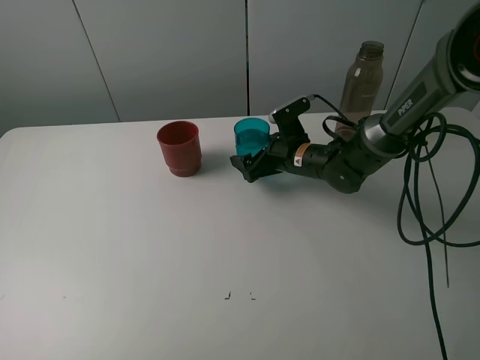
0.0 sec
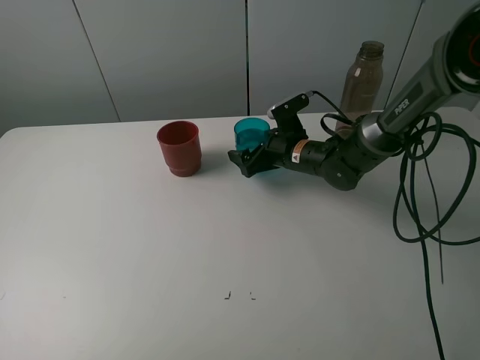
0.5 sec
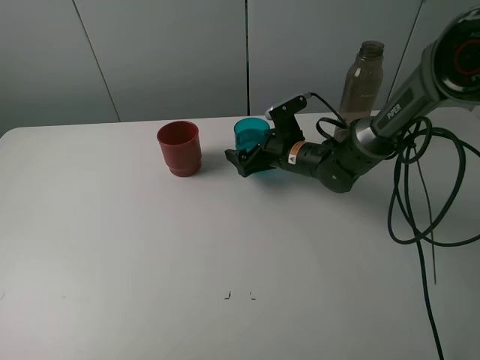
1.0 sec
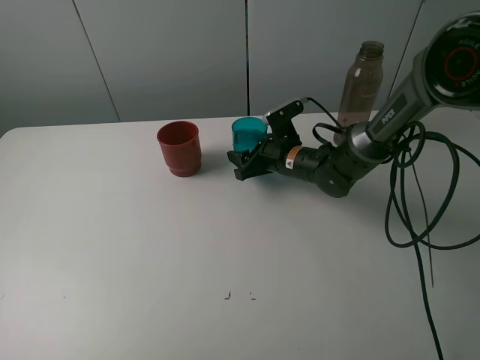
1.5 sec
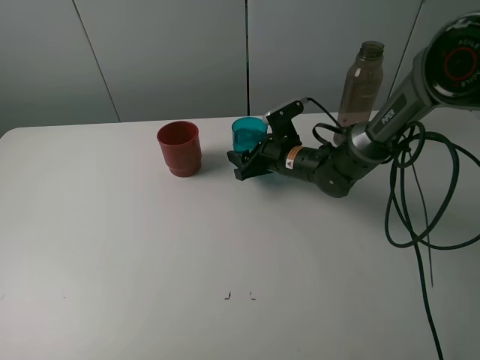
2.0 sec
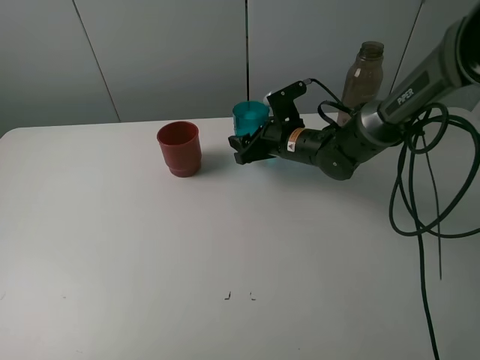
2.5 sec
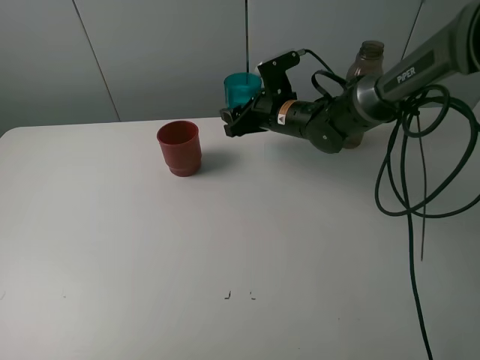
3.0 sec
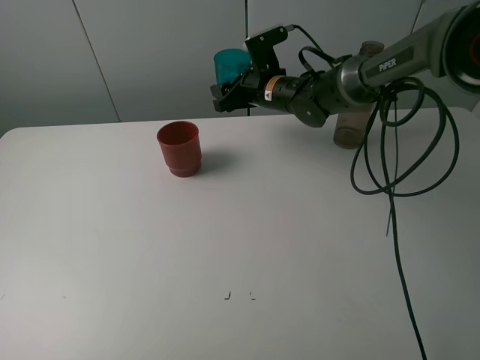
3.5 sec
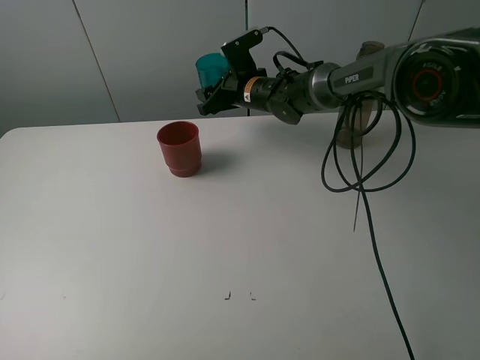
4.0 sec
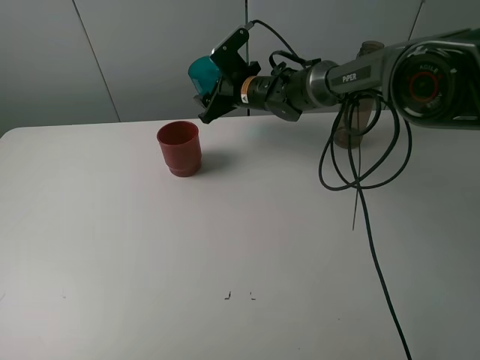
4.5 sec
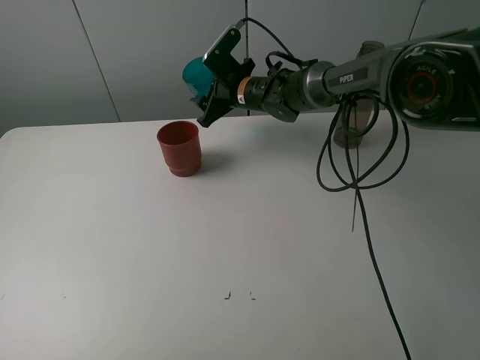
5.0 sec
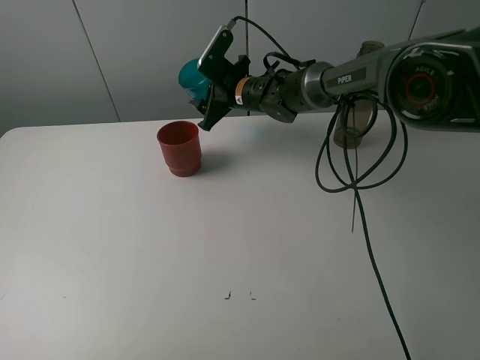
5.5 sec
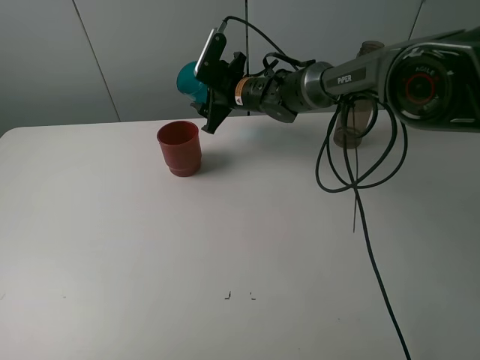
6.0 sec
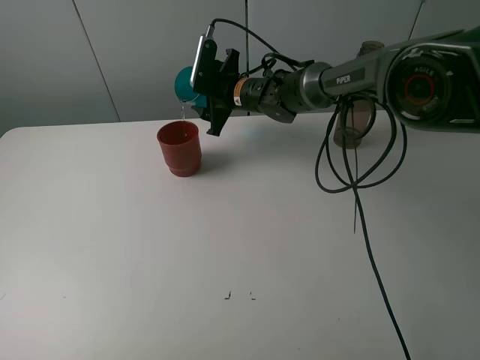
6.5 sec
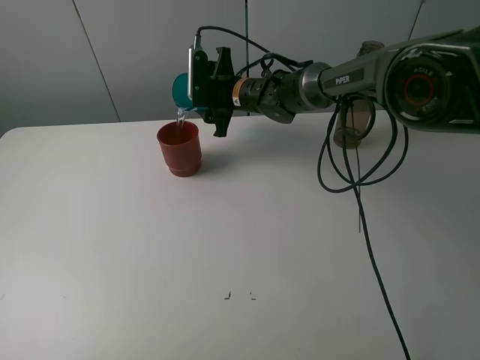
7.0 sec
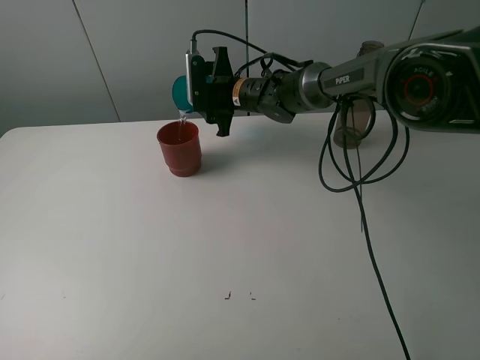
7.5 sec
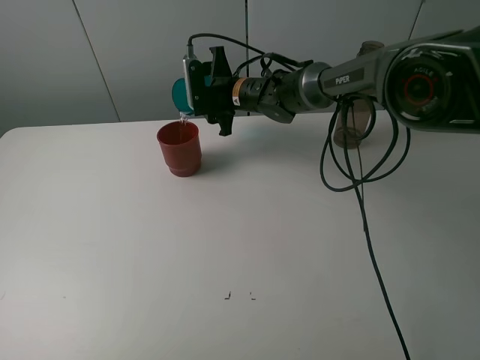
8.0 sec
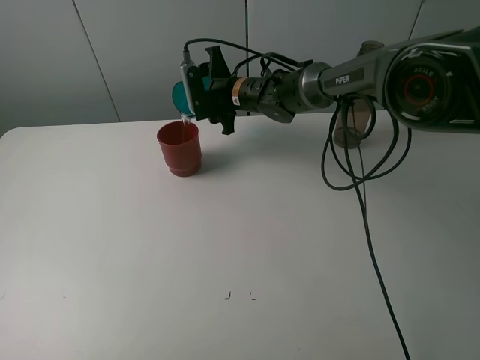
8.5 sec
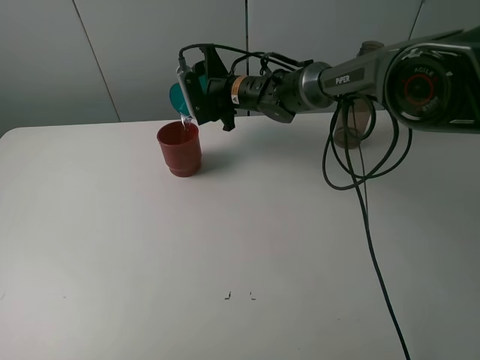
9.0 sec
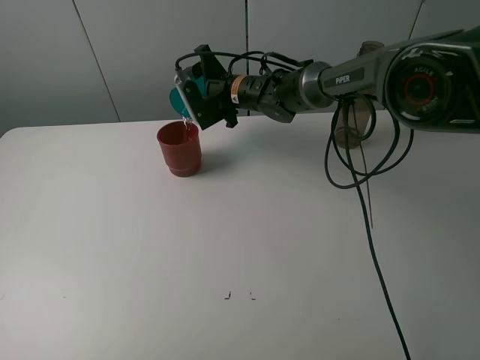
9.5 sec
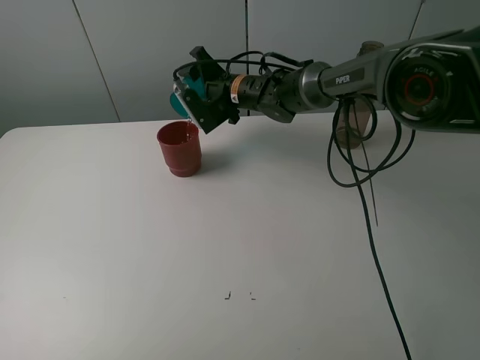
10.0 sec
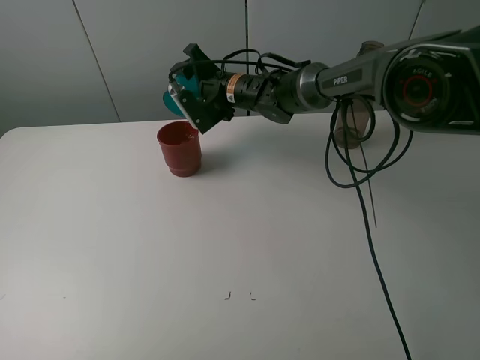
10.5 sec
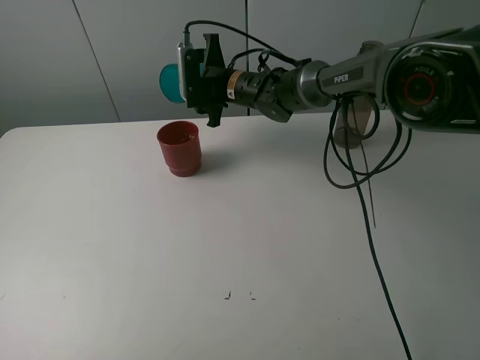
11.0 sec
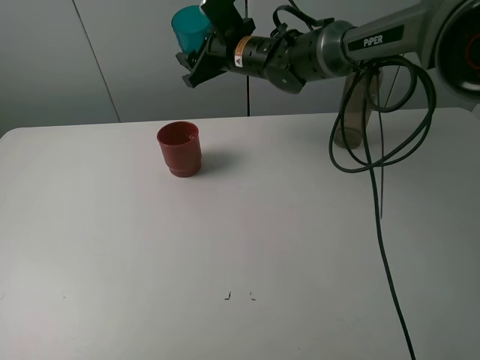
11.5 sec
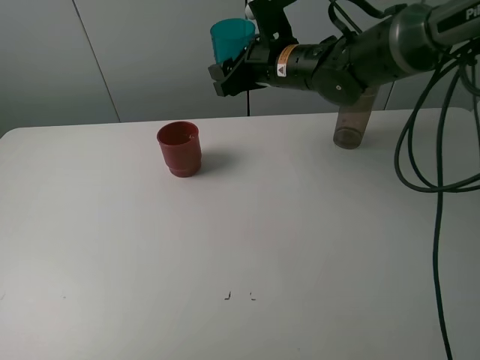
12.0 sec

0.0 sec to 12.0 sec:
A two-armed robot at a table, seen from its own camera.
Task of the whole recording: pick up the bottle and pour water into the cup, then pick up the cup containing water and pour it into another cup.
Step, 2.0 sec to 10.5 sec: Pour water from blue cup to red cup with the right gripper.
0.0 sec to 2.0 sec: The right gripper closes.
2.0 sec to 4.0 sec: The right gripper goes about 15 cm forward, upward and to the left.
10.0 sec to 12.0 sec: The right gripper goes some 15 cm backward, to the right and upward.

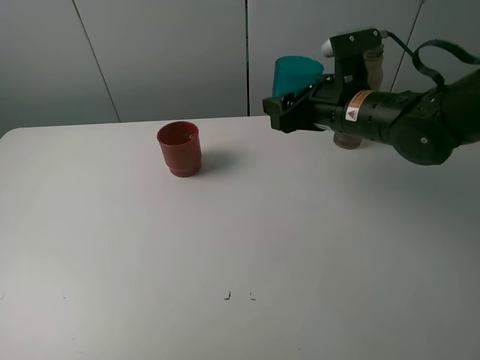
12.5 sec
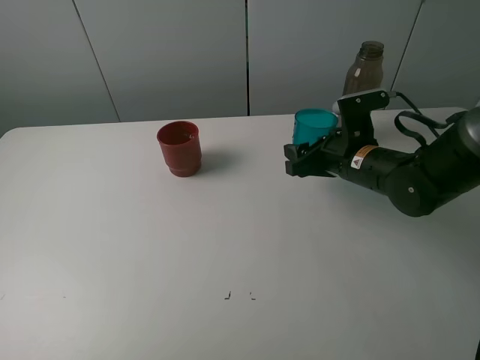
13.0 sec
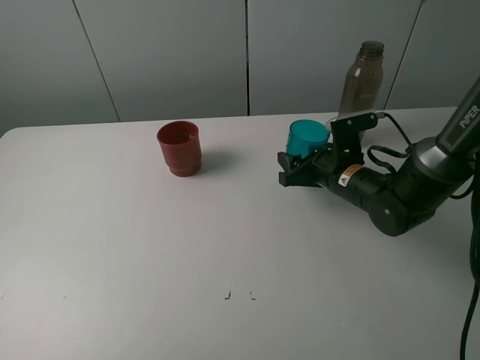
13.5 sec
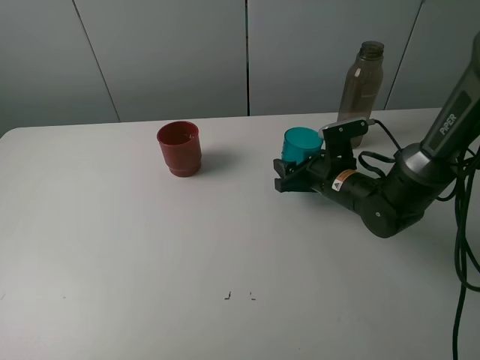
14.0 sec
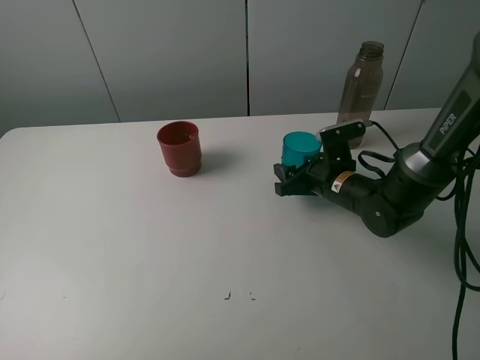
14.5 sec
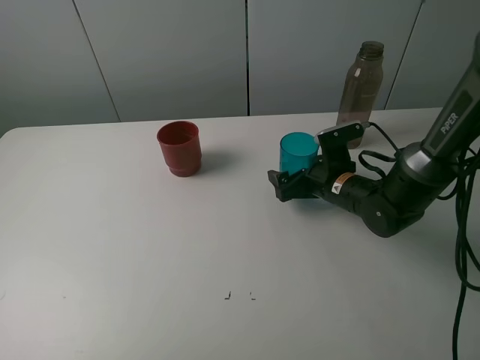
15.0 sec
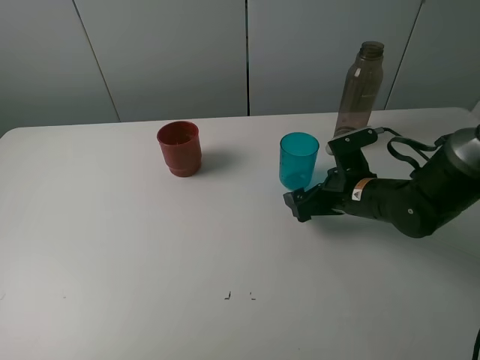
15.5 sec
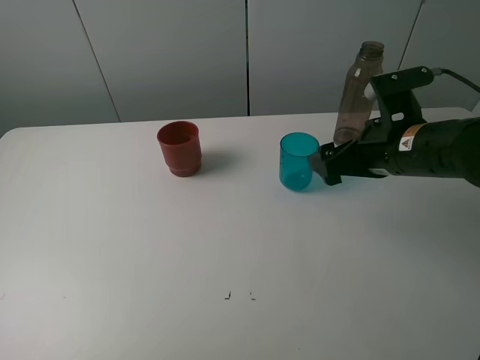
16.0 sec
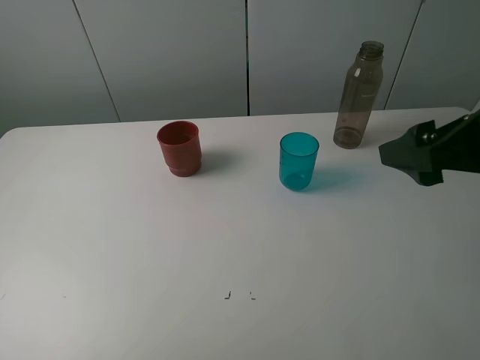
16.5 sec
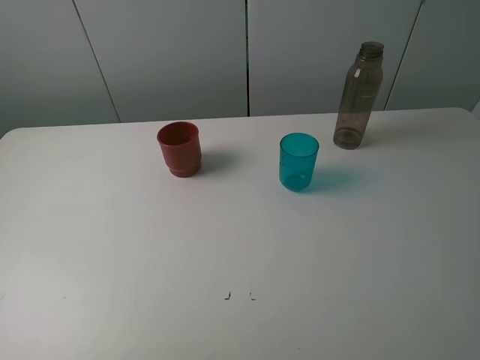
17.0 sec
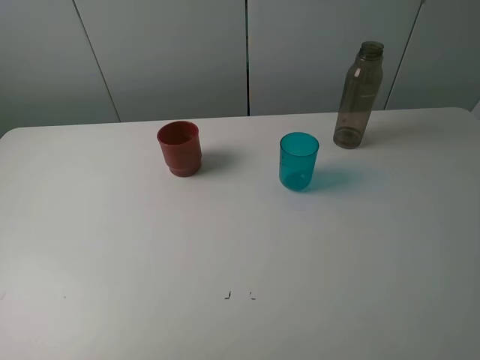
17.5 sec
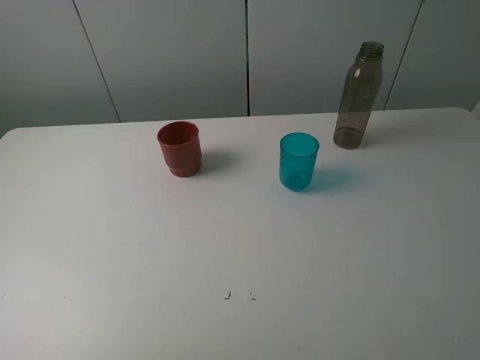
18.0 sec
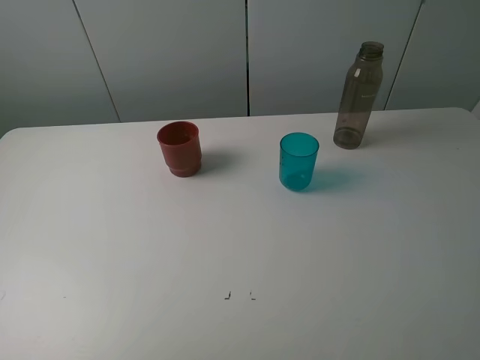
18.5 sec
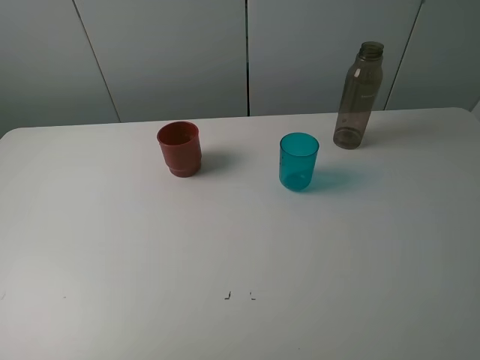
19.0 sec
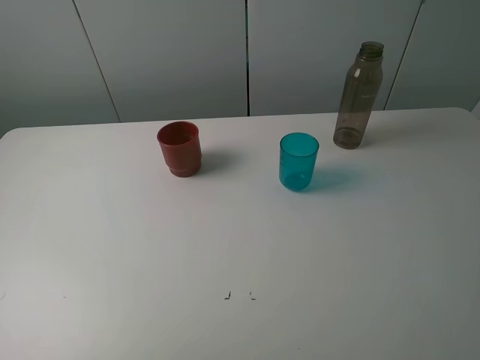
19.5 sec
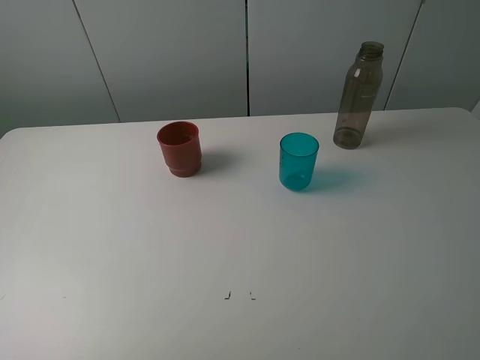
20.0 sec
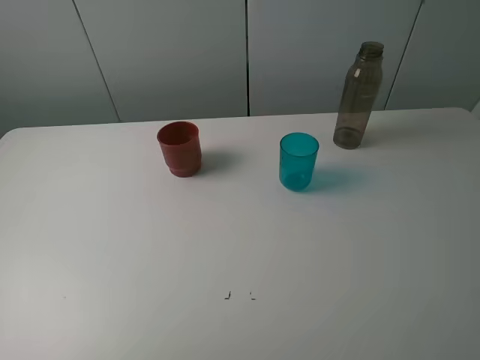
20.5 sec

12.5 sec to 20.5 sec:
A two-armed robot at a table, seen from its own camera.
Task of the whole recording: pick up the bottle and pour water into the cup, then pick up the cup containing water and pour it into another cup.
Step, 12.5 sec to 15.0 sec: Place the blue cup with the right gripper.
12.5 sec to 14.5 sec: The right gripper is displaced downward by some 15 cm.
14.5 sec to 16.5 sec: The right gripper shifts some 30 cm upward and backward, and opens.
16.5 sec to 18.5 sec: The right gripper goes some 15 cm backward and to the right.
18.5 sec to 20.5 sec: Neither gripper changes place.

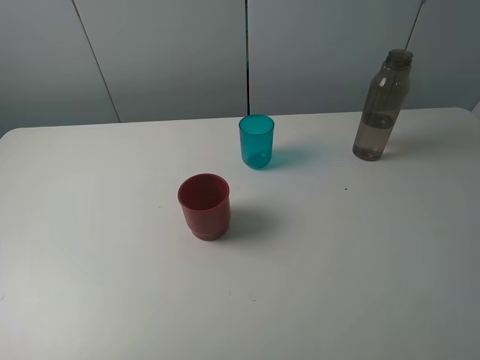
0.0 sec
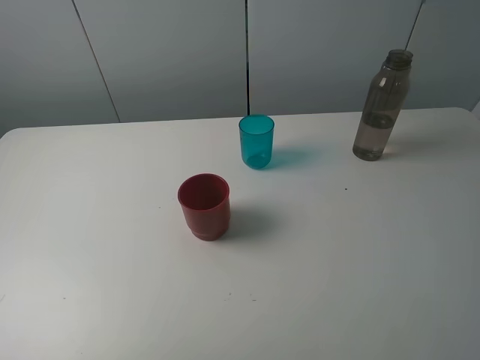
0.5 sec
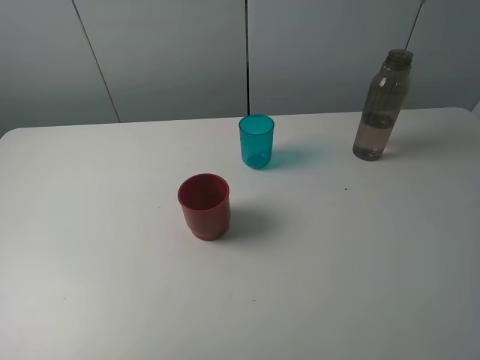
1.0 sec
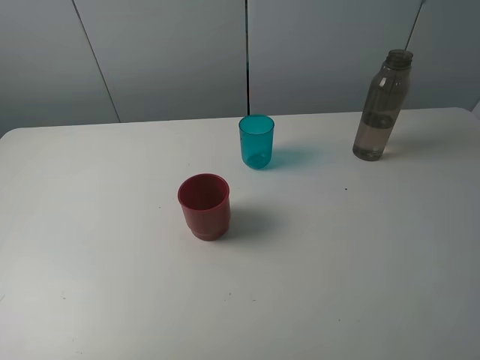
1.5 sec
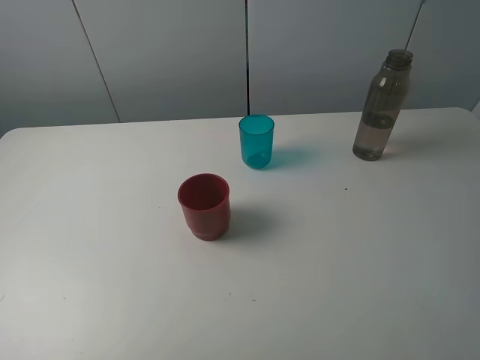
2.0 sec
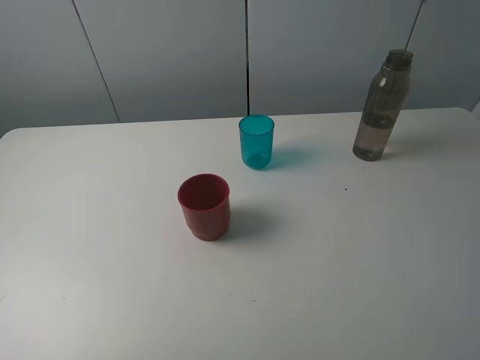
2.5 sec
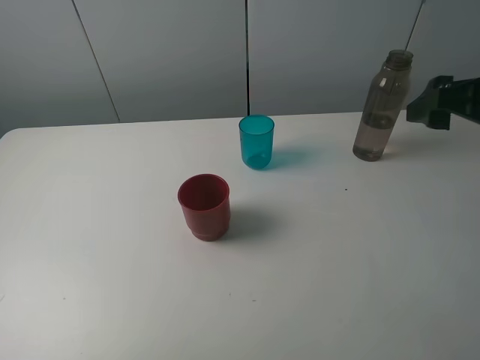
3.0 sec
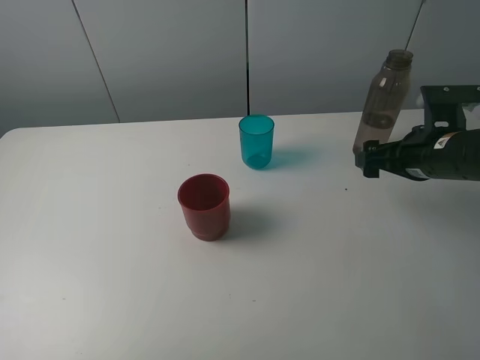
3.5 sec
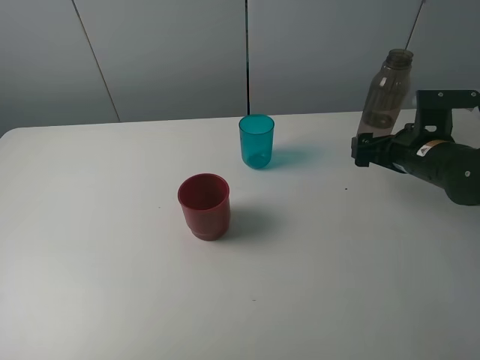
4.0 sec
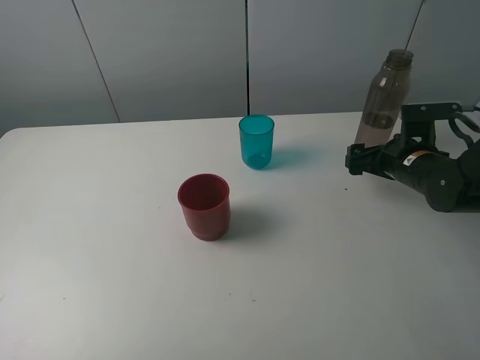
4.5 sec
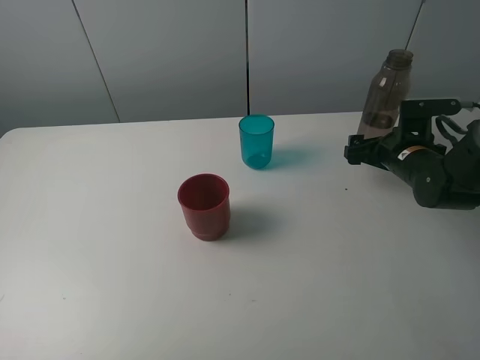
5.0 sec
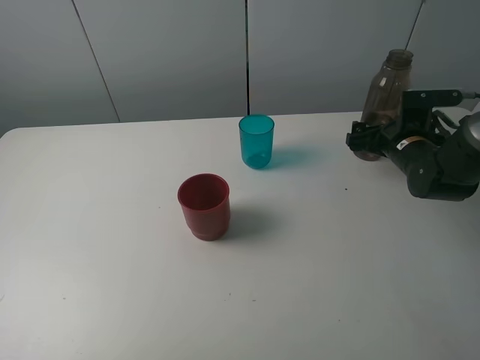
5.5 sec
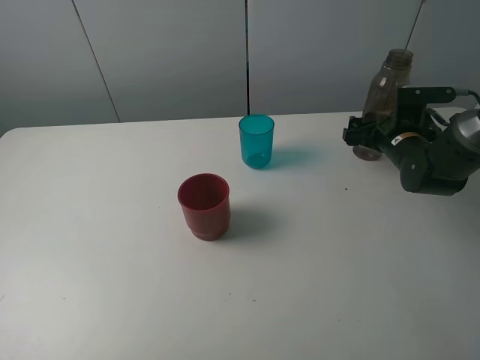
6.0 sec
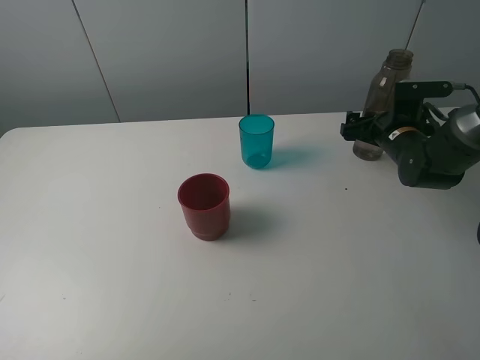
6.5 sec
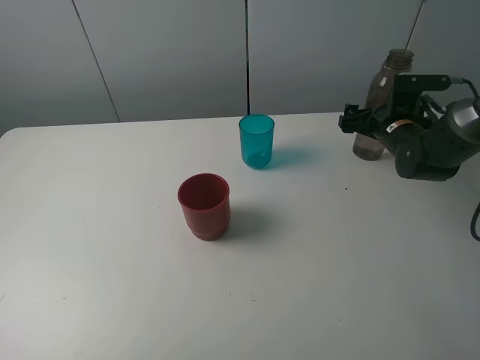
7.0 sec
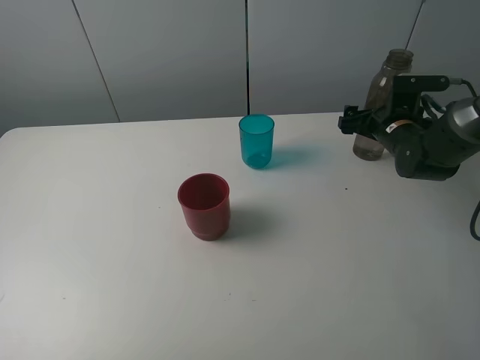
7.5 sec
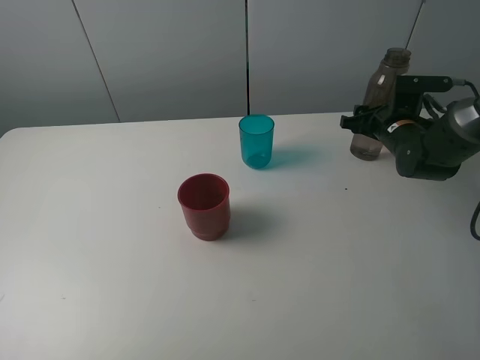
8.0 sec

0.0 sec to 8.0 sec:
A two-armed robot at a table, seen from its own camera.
Task of the whole recording: pick up the bottle and pour water into the cup, then pick up the cup containing water and pour it into another cup.
Step, 0.0 sec to 7.5 sec: Grasp the brown bottle with the right gripper.
0.0 sec to 2.0 sec: Both grippers stay about where they are.
2.0 sec to 4.0 sec: The right gripper shifts about 35 cm forward and downward.
4.0 sec to 6.0 sec: The right gripper shifts approximately 5 cm forward.
6.0 sec to 8.0 sec: The right gripper closes its fingers.
